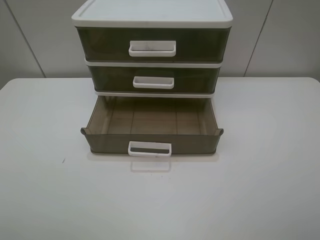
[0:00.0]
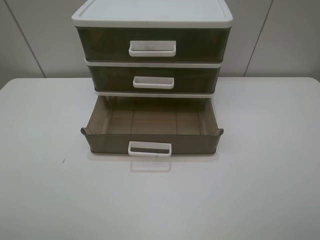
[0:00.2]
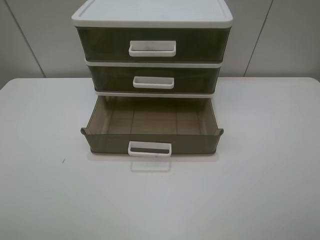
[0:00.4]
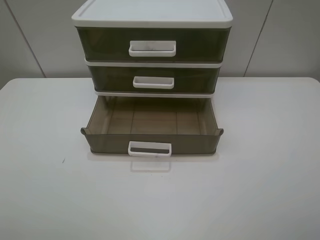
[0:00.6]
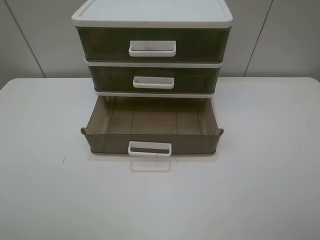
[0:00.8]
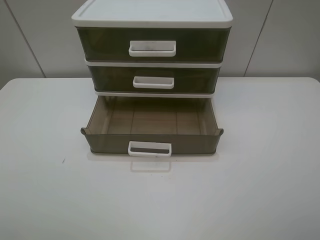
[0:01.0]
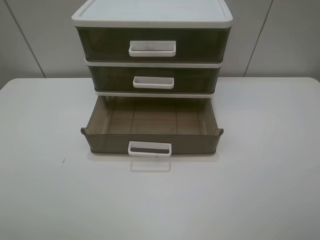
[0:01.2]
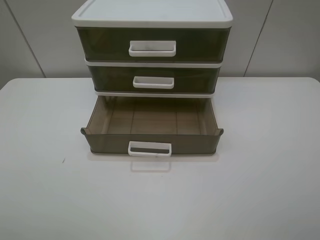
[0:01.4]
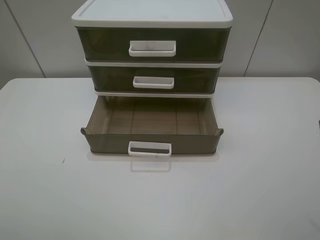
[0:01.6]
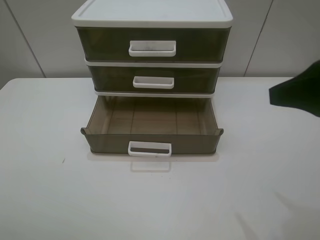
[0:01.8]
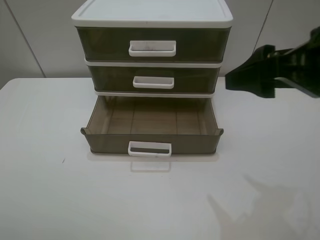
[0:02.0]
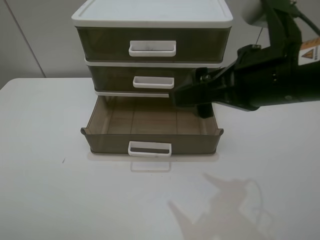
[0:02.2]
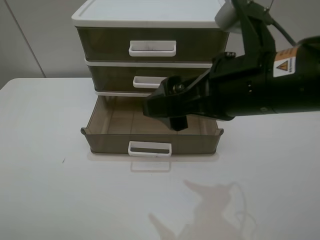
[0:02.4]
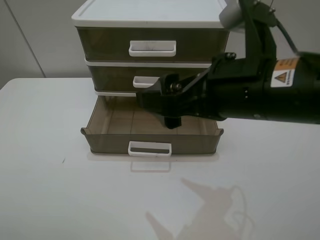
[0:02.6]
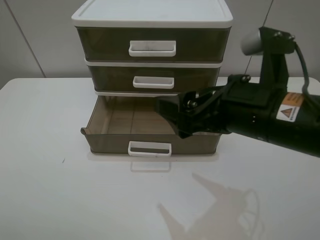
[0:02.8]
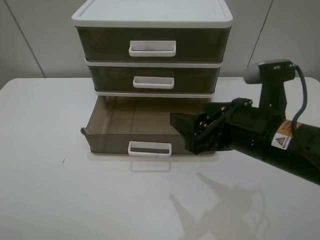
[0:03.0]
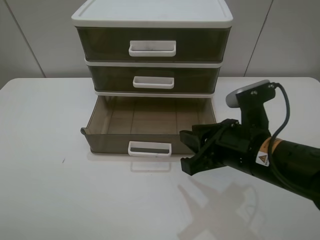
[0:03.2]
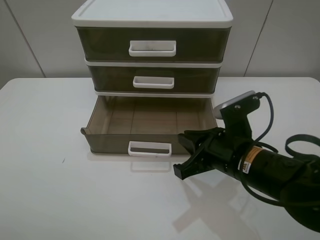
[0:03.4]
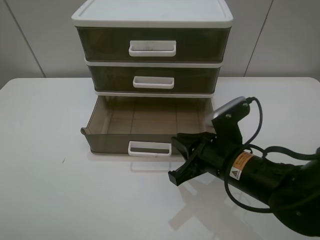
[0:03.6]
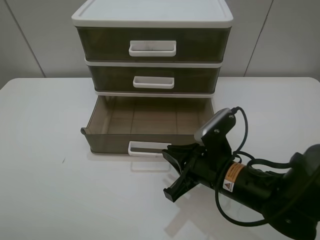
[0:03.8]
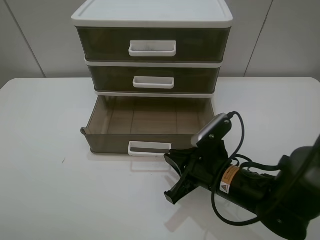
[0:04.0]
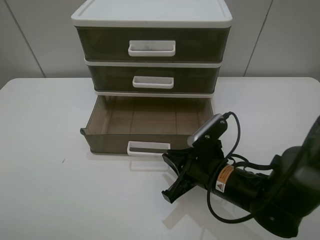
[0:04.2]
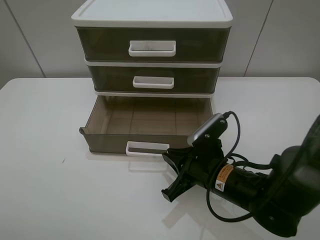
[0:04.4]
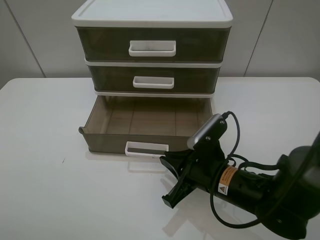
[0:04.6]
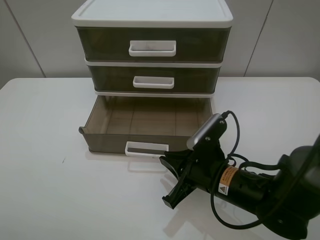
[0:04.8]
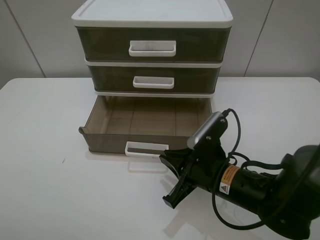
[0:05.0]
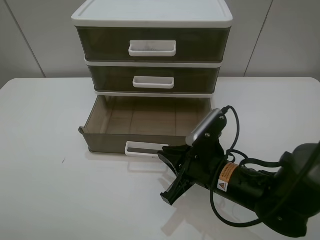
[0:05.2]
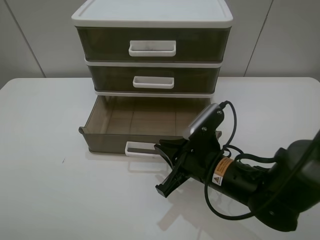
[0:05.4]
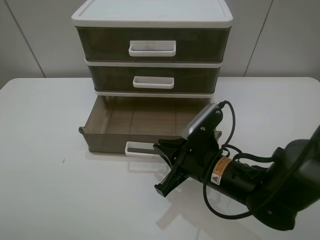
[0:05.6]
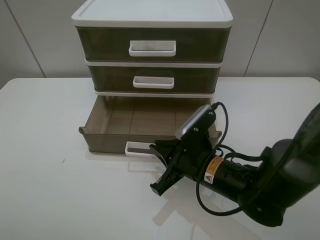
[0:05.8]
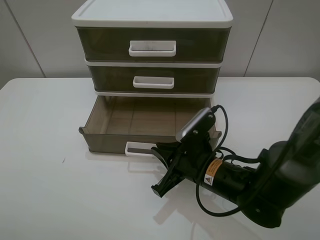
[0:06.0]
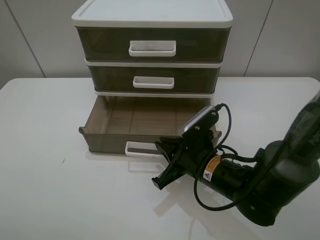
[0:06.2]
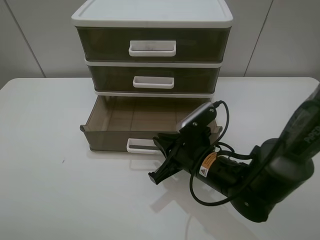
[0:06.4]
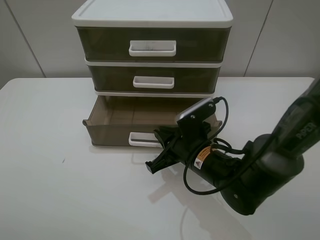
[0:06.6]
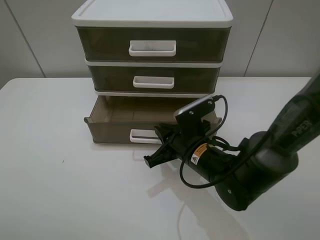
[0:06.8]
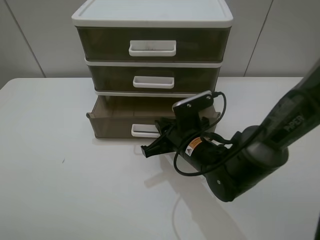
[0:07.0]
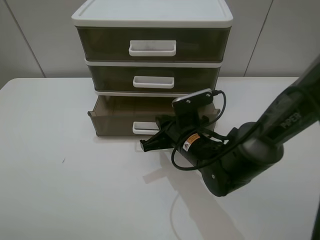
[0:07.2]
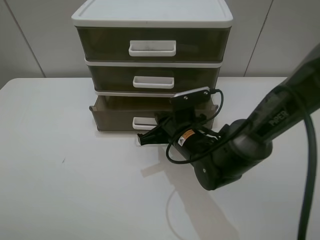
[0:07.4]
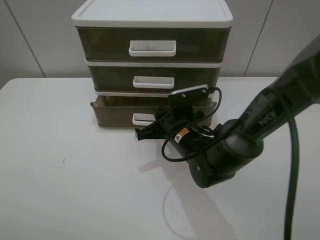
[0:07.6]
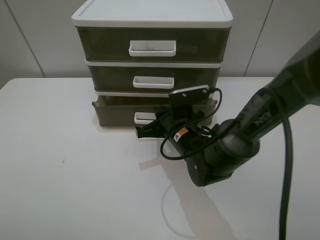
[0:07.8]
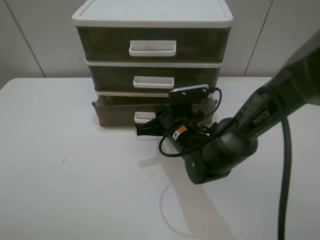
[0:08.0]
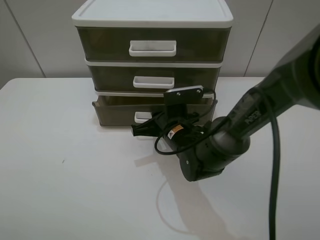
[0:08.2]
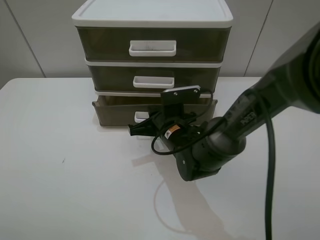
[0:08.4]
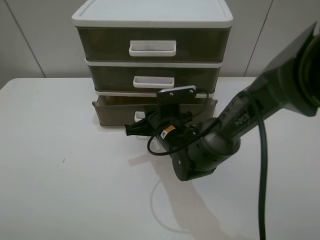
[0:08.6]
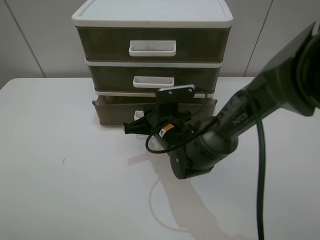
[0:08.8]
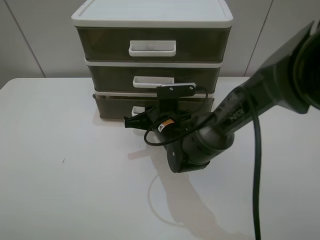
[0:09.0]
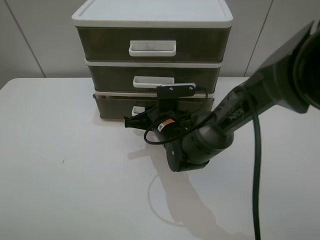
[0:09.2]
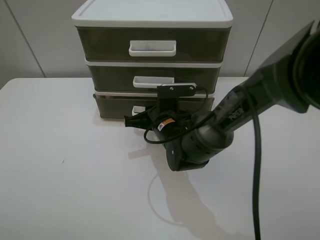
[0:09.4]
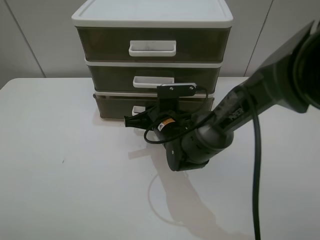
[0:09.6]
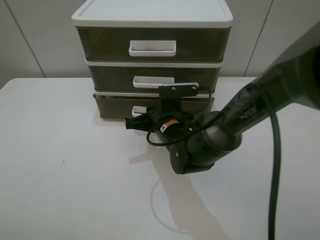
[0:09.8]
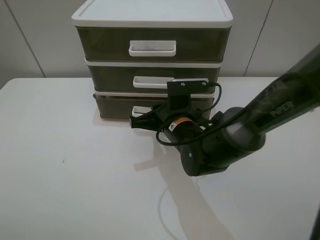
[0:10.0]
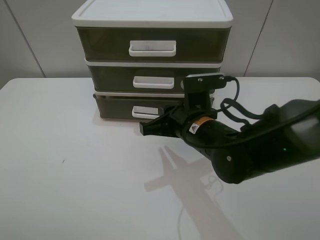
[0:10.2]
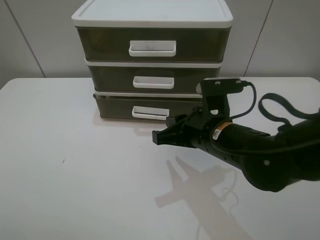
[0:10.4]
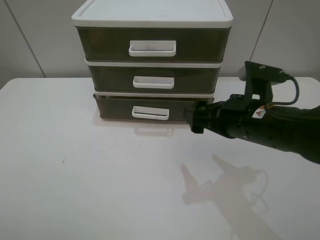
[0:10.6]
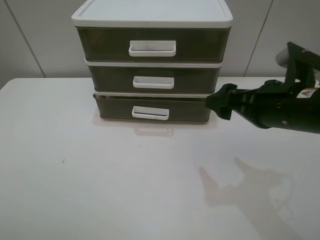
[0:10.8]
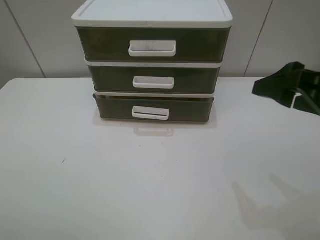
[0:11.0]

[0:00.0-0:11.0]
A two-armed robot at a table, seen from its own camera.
Task of the whole recording: close the bottom drawer.
Step, 0:00.0 to 0:06.2: Use the right gripper to contact the bottom layer of the storage cabinet.
Step, 0:06.4 to 0:09.6: Push the bottom drawer closed.
0:01.6 to 0:03.2: The right gripper is displaced downward, to the left and forward by about 25 cm, and closes its fingers.
0:03.2 to 0:04.8: The right gripper shifts roughly 10 cm downward.
0:04.8 to 0:06.2: The grippers make only small movements.
0:06.2 to 0:07.8: The right gripper is displaced forward by approximately 5 cm.
0:07.8 to 0:09.4: The grippers stay close to where they were, moving slightly.
0:09.4 to 0:11.0: The right gripper heads to the right, upward and backward, covering about 35 cm, and opens its fingers.

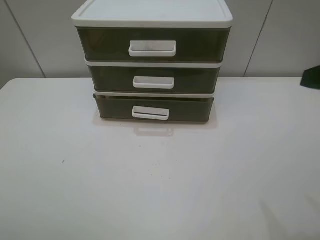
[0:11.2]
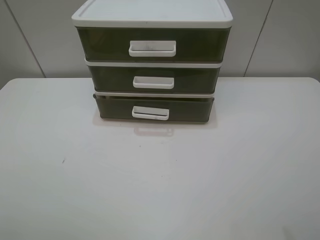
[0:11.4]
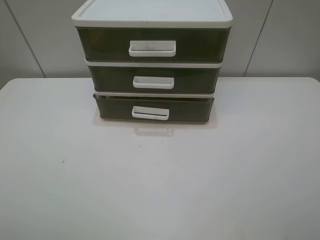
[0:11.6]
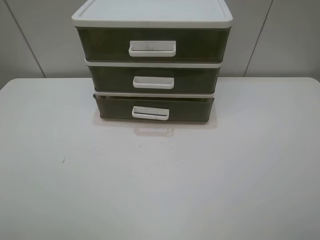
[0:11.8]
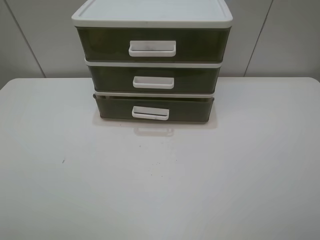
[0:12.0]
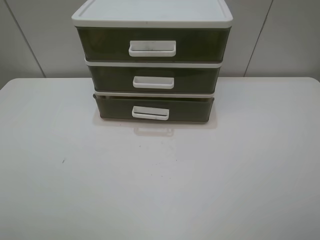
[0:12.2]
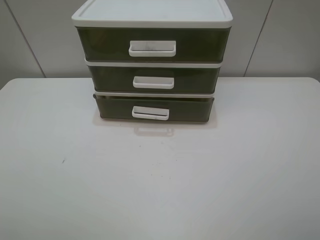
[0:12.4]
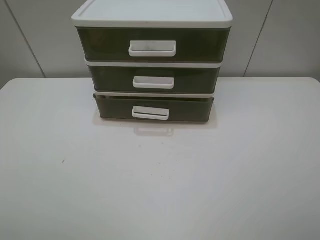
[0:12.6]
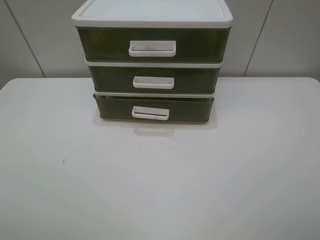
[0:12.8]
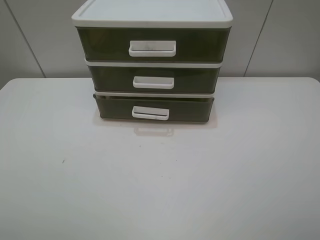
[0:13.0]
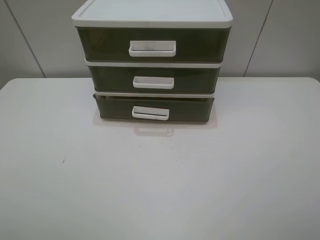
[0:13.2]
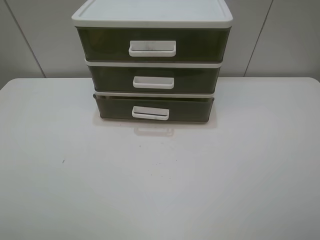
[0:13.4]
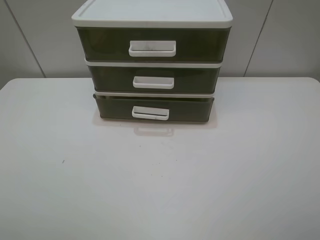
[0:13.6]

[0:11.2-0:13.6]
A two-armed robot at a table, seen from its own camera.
Task of the whole recording: close the bottom drawer.
0:12.4 to 0:13.6: Both grippers stay put.
